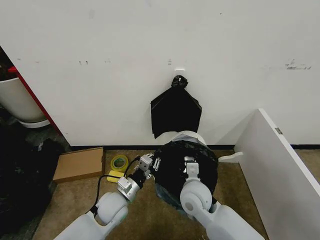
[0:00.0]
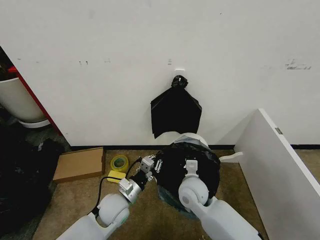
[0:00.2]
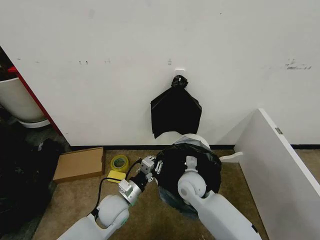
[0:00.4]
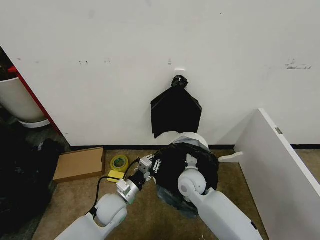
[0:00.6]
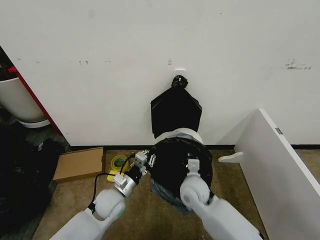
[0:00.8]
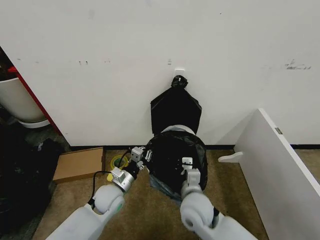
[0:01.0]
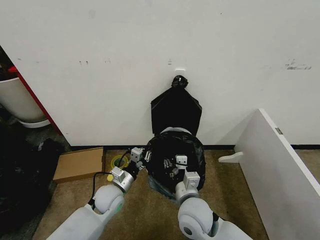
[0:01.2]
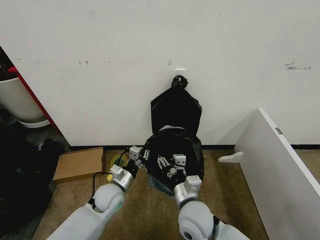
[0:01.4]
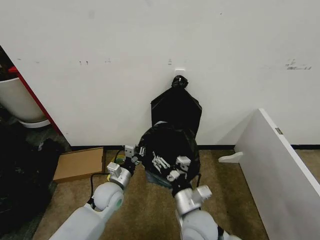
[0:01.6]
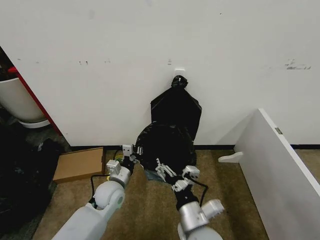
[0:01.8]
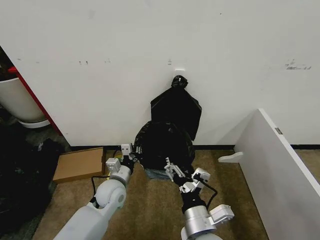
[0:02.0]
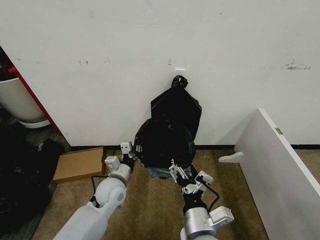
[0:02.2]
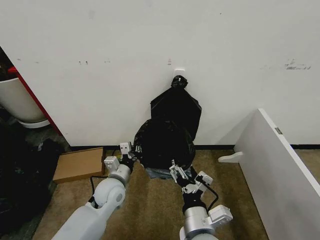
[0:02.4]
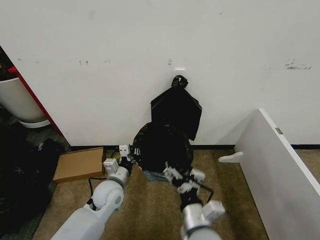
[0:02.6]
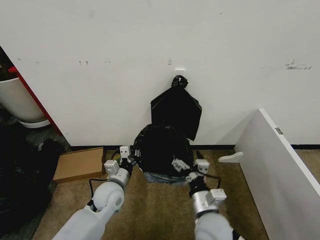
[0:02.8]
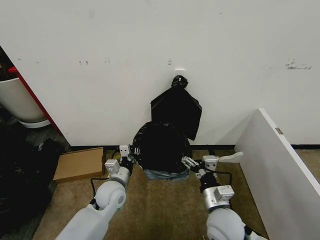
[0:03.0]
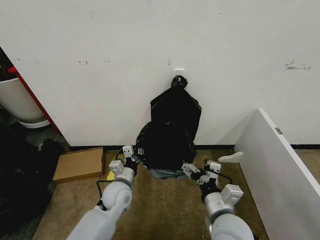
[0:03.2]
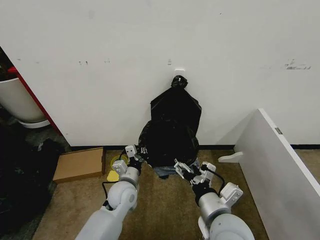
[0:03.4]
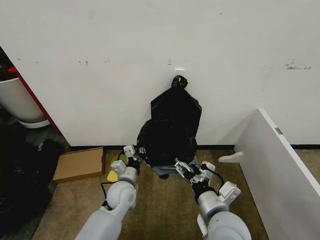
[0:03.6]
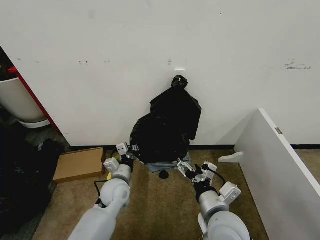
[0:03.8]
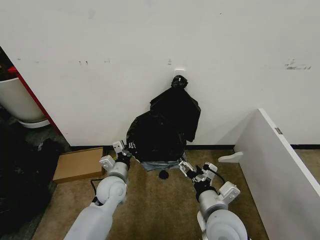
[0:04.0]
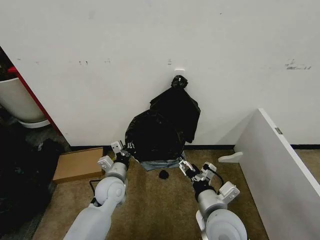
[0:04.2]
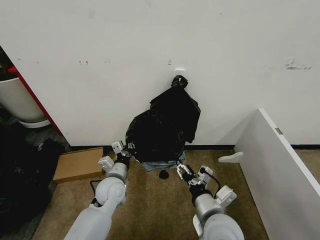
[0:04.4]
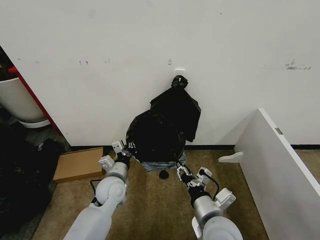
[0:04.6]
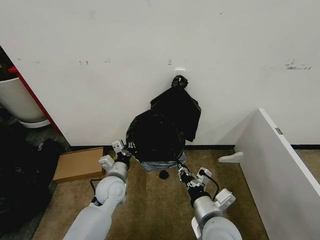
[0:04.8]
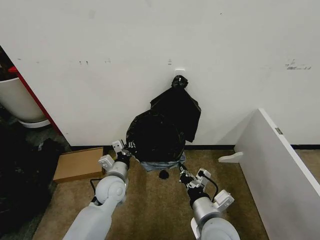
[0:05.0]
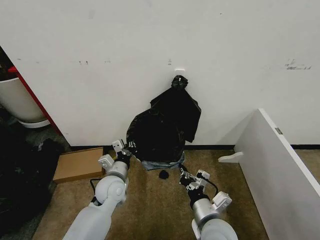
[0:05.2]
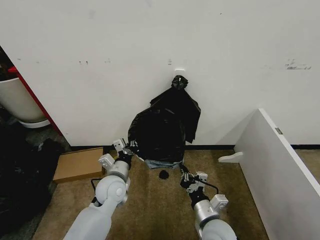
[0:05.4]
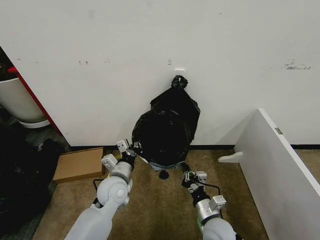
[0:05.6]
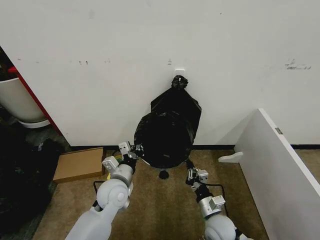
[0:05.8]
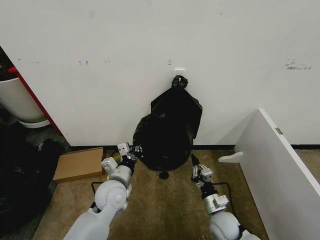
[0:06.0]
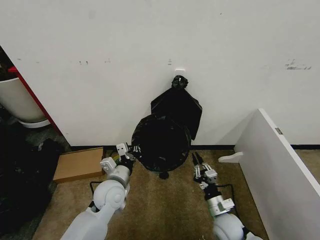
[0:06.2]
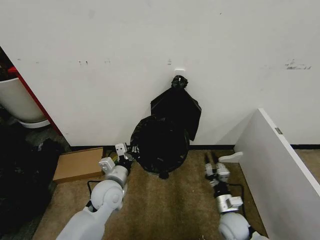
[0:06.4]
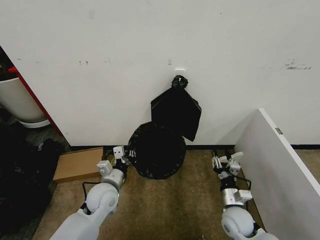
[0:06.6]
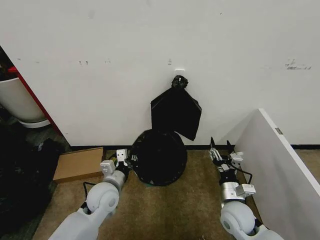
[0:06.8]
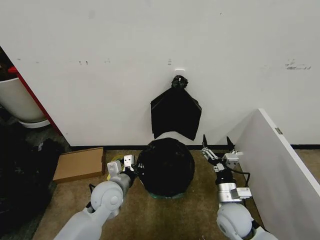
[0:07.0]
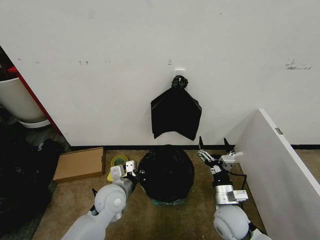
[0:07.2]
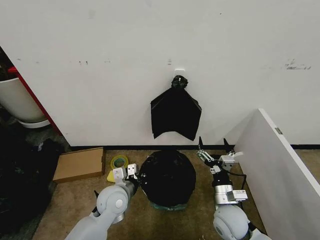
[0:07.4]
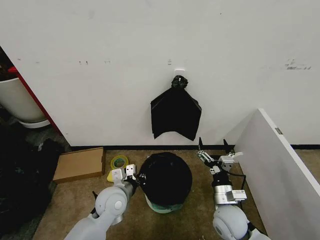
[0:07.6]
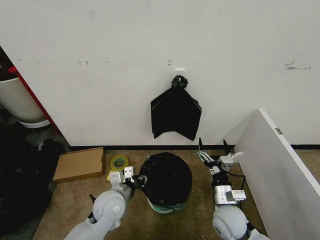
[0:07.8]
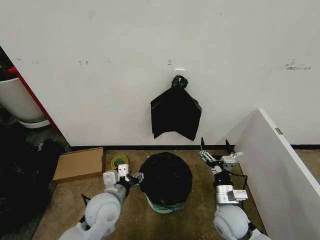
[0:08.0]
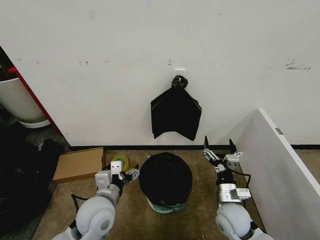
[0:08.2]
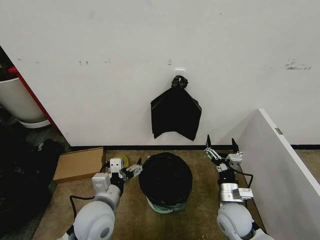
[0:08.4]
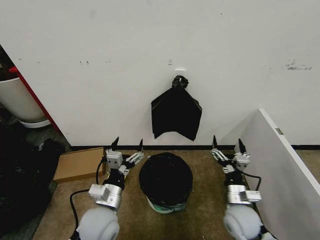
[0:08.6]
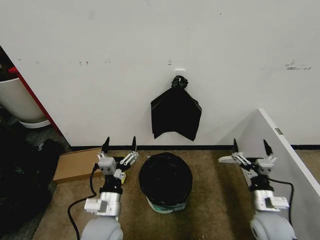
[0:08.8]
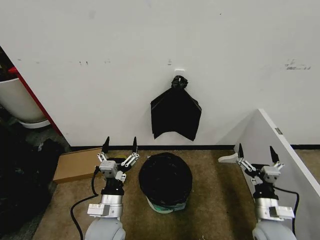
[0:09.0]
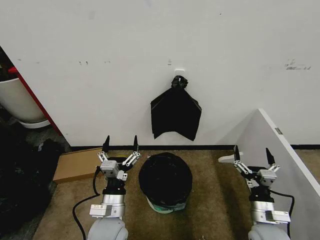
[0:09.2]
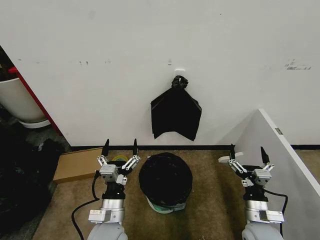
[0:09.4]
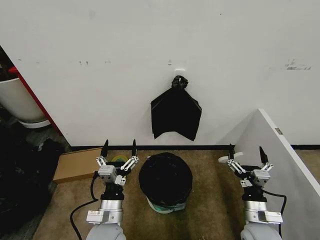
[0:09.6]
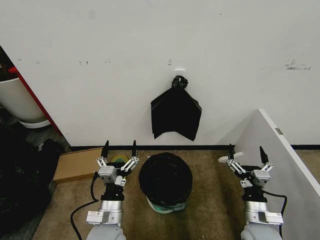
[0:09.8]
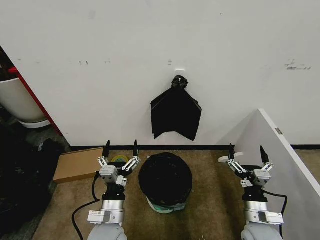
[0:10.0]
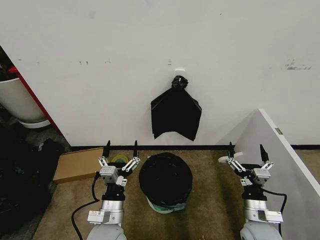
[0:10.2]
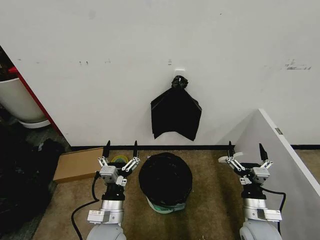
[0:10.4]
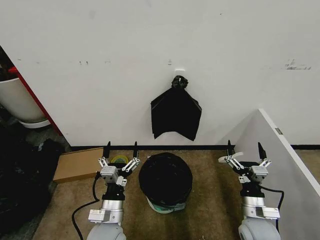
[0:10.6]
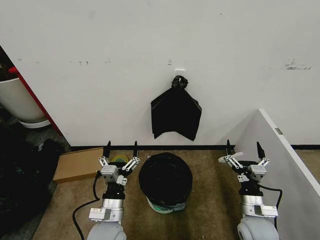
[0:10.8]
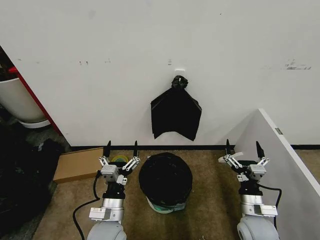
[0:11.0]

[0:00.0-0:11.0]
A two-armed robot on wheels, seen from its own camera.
Task of the whole recording: Place the garbage bag over the trash bin.
0:00.0 to 0:01.6: The right gripper shifts approximately 10 cm backward, and opens.
0:01.6 to 0:03.2: The right gripper is displaced to the right by about 5 cm.
0:03.2 to 0:04.8: The right gripper closes up.
0:04.8 to 0:06.2: The right gripper goes roughly 20 cm downward and to the right.
0:06.2 to 0:07.8: The right gripper moves upward, about 10 cm, and opens. Meanwhile the left gripper opens.
0:07.8 to 0:09.4: The left gripper travels backward by approximately 10 cm, and opens its fingers, while the right gripper is displaced to the right by approximately 10 cm.
0:09.4 to 0:11.0: The grippers make only small movements.

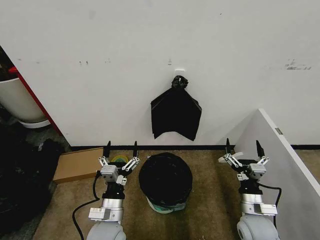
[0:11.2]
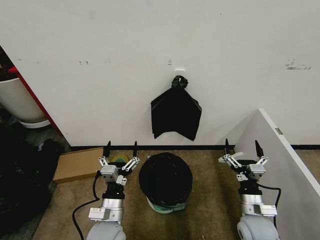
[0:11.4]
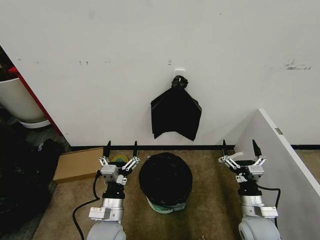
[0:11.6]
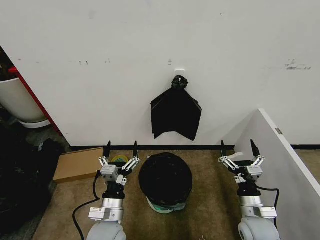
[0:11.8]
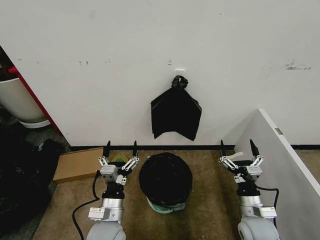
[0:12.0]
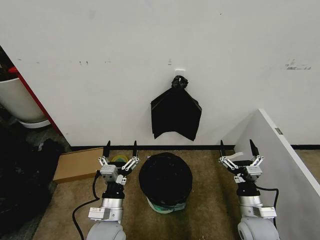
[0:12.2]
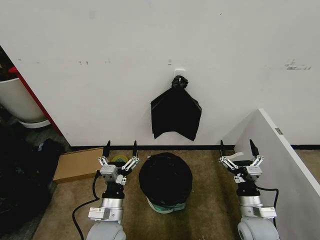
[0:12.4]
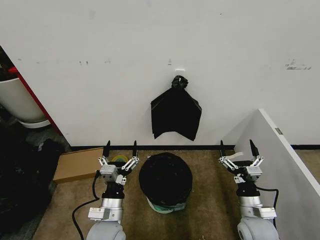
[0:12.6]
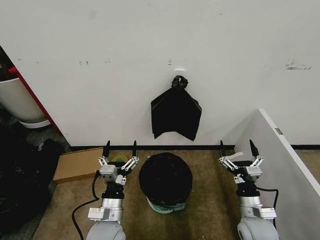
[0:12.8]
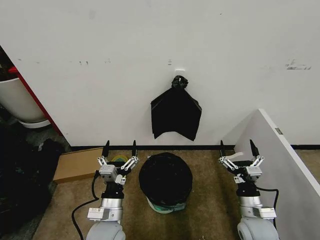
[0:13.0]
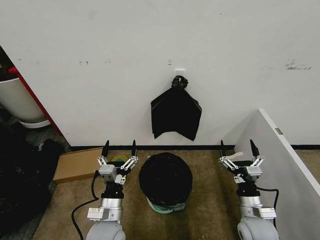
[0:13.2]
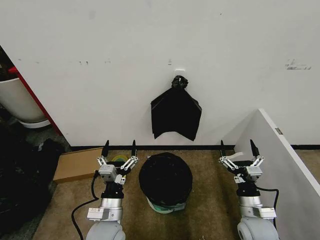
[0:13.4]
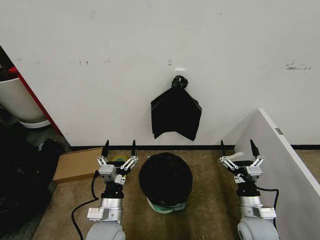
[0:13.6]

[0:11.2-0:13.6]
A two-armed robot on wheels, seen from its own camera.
Task of the whole recording: Place the garbage bag over the trash bin.
0:11.2 to 0:12.4: The grippers stay close to where they were, moving slightly.
0:12.4 to 0:13.6: Both grippers stay about where they are.

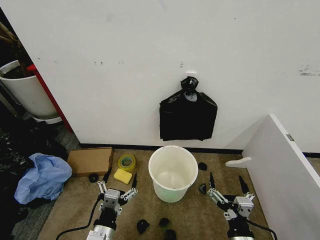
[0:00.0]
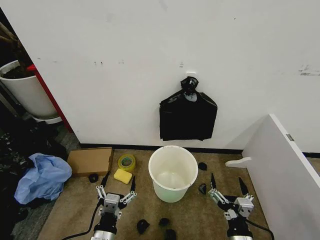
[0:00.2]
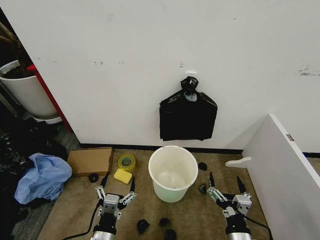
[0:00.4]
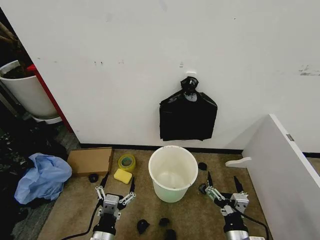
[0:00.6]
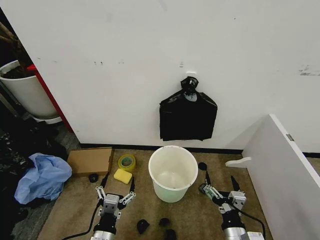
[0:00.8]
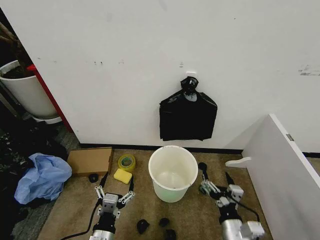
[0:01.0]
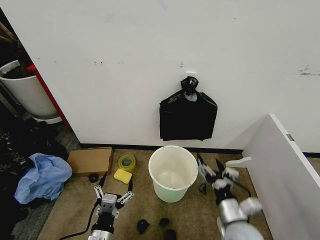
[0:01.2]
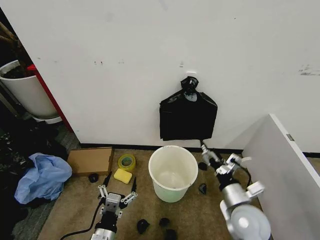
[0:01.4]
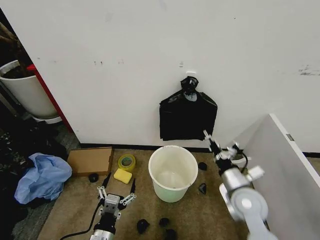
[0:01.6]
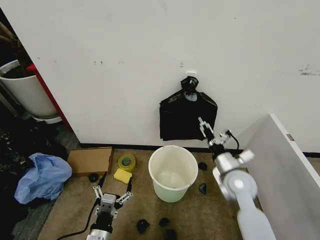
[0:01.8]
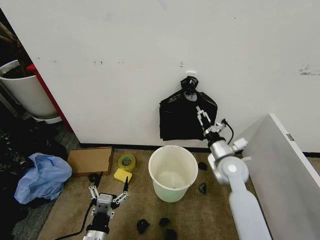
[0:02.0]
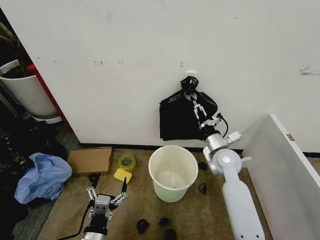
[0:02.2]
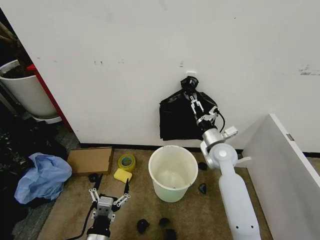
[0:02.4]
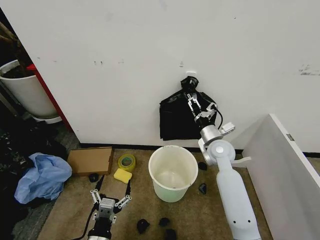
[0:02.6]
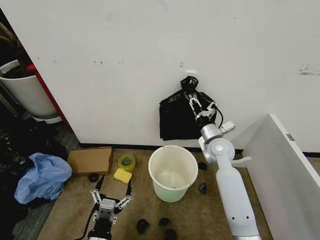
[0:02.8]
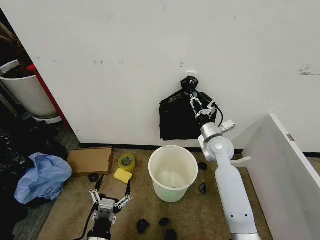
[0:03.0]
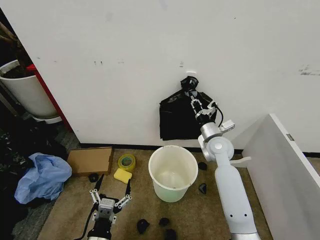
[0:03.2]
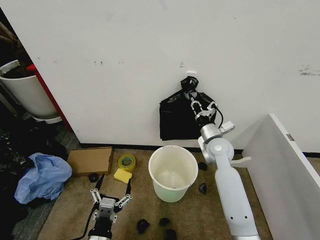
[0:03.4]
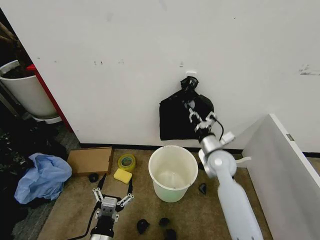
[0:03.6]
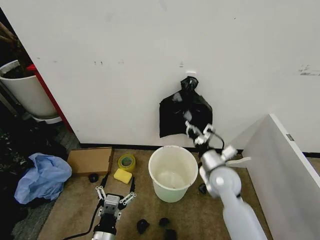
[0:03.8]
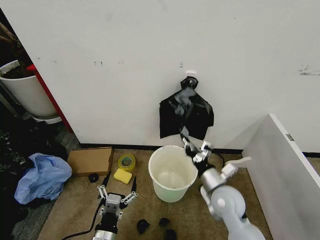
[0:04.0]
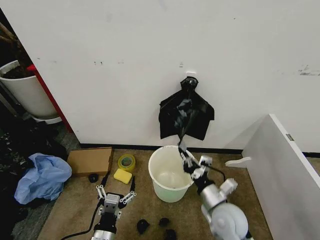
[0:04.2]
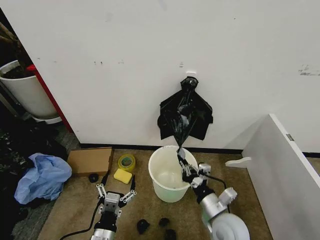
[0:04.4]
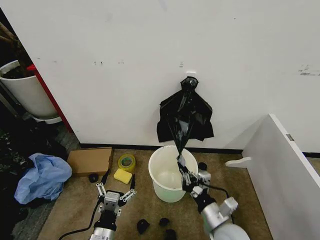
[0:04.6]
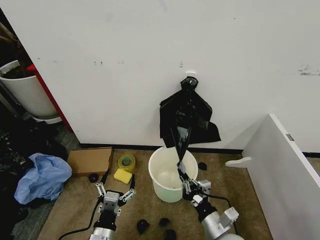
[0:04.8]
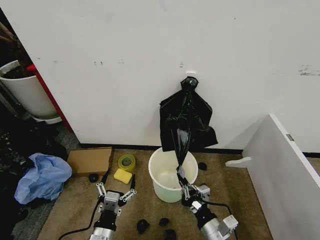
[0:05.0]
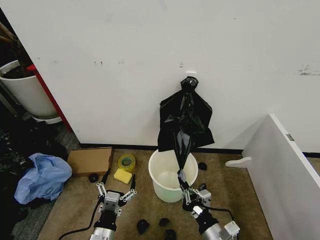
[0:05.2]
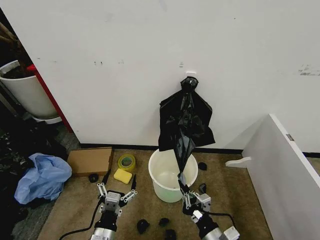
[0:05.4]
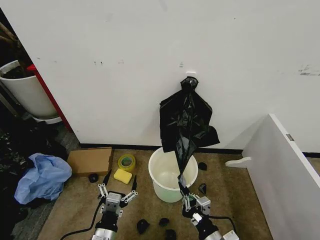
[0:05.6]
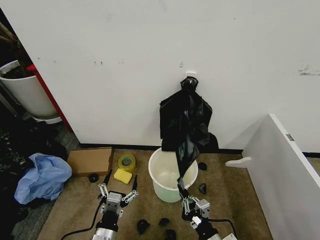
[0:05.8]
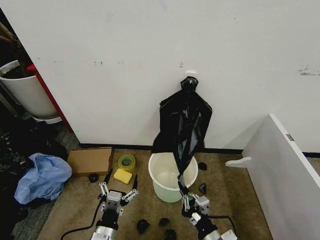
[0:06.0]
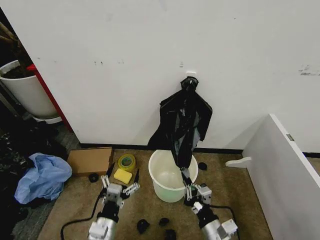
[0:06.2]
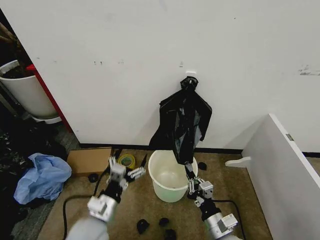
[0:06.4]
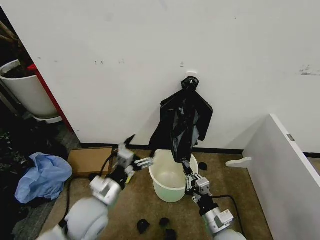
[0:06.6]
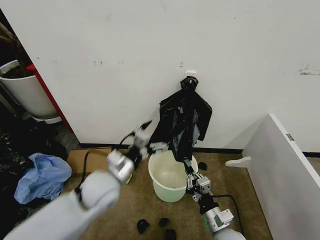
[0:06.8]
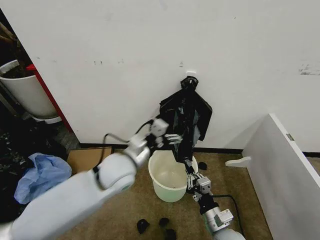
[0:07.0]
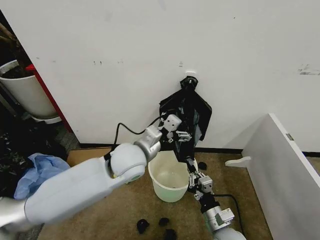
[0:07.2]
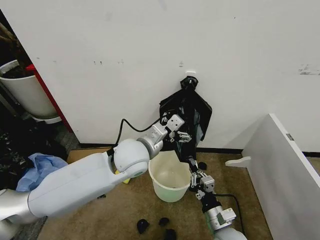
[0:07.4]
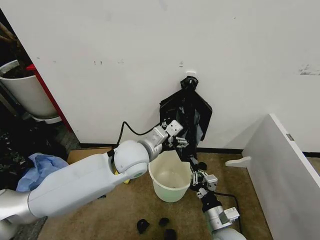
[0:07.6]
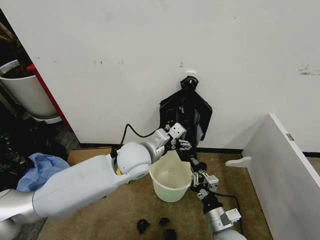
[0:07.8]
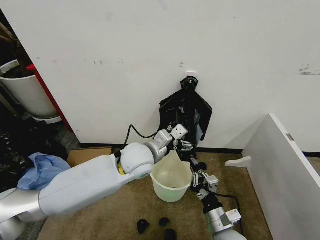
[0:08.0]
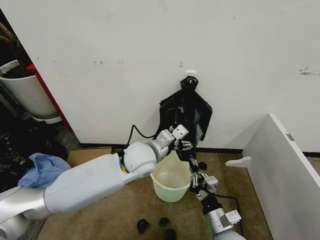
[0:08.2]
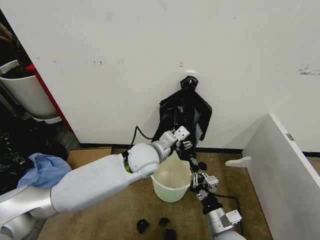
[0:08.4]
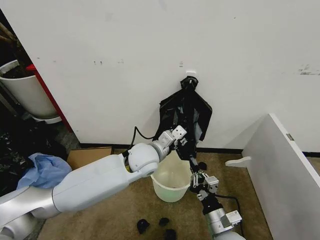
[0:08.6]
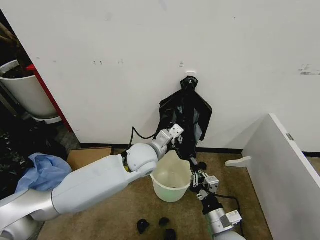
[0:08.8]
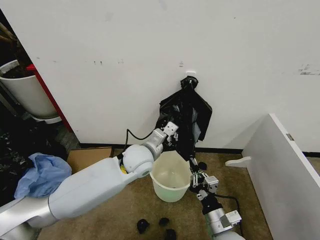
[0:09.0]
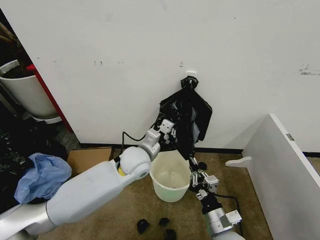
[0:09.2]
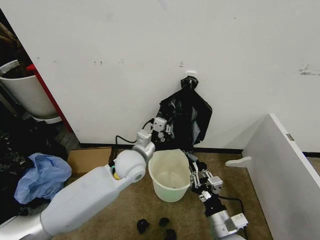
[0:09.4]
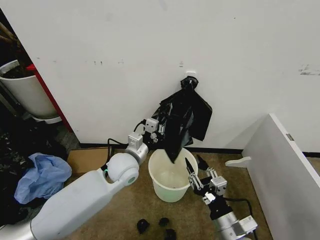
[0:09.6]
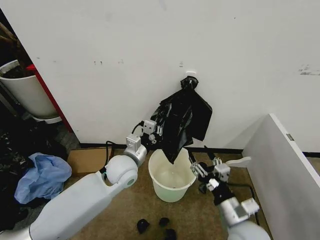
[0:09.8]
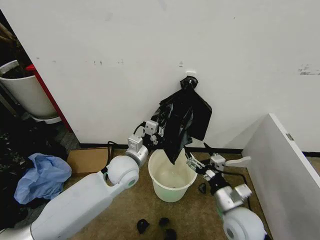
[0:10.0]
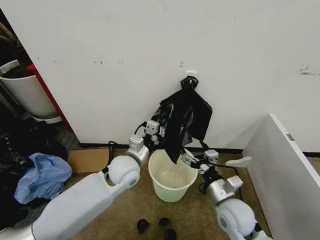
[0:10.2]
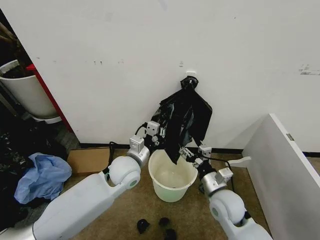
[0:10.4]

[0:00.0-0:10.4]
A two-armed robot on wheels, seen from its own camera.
Task of the whole recording: Place the garbage bag over the trash bin.
0:01.4 to 0:03.0: The right gripper is displaced forward by roughly 20 cm, and closes.
0:03.0 to 0:04.4: The right gripper moves backward, approximately 25 cm.
0:04.4 to 0:06.0: The right gripper heads backward, covering some 10 cm.
0:06.0 to 0:07.4: The right gripper goes some 5 cm forward, while the left gripper heads forward, upward and to the right, covering some 30 cm.
0:07.4 to 0:09.0: The left gripper is displaced downward by approximately 5 cm, and closes up.
0:09.0 to 0:10.4: The right gripper travels forward by some 10 cm, and opens up. Meanwhile the left gripper moves some 5 cm.
